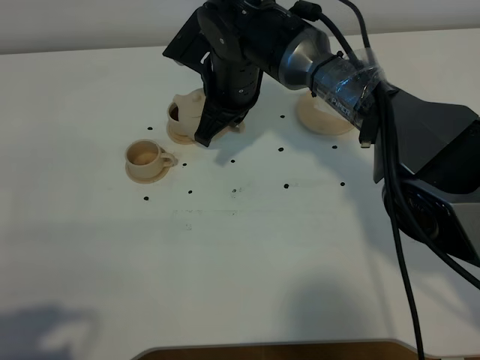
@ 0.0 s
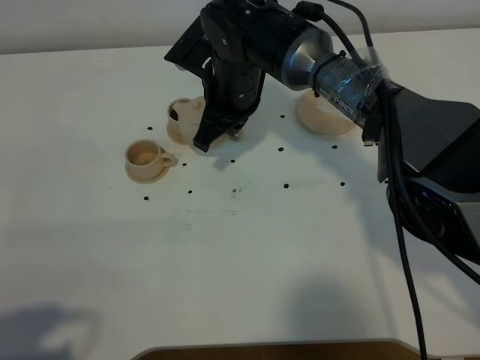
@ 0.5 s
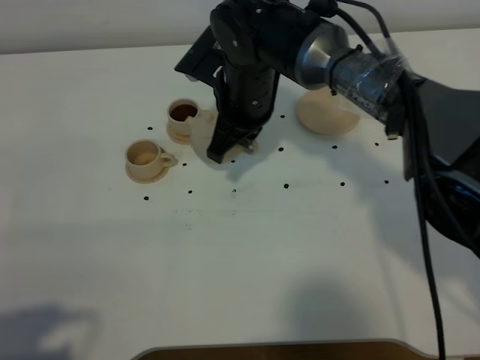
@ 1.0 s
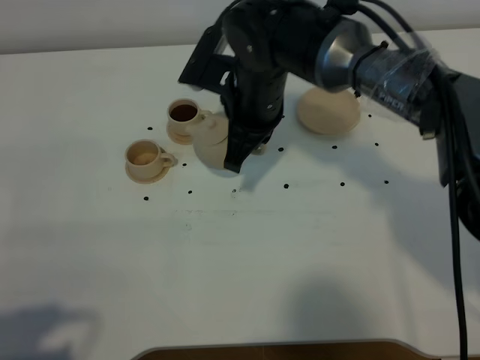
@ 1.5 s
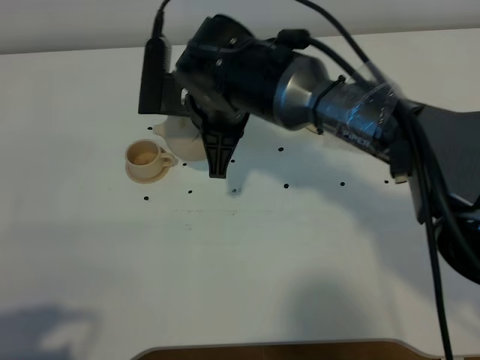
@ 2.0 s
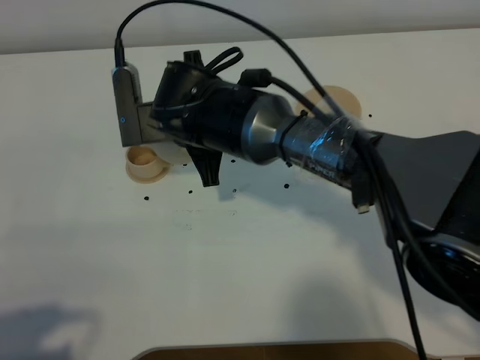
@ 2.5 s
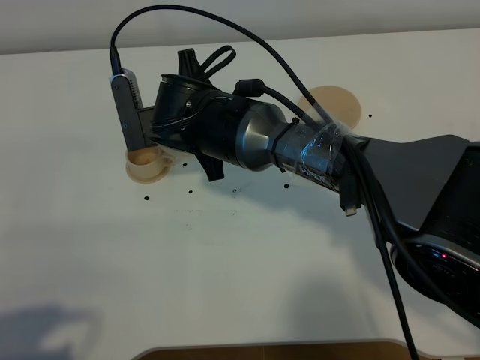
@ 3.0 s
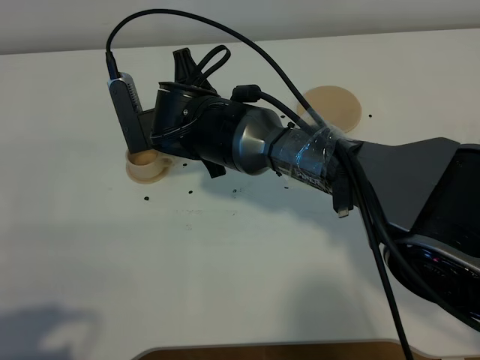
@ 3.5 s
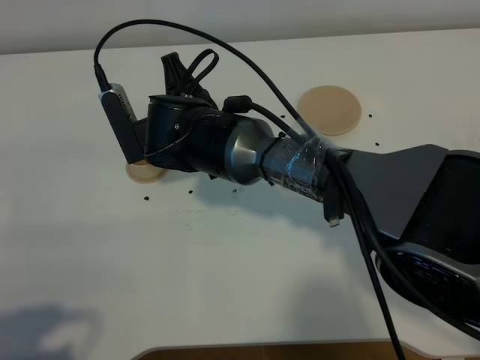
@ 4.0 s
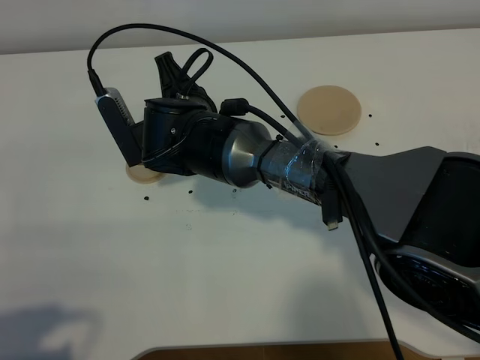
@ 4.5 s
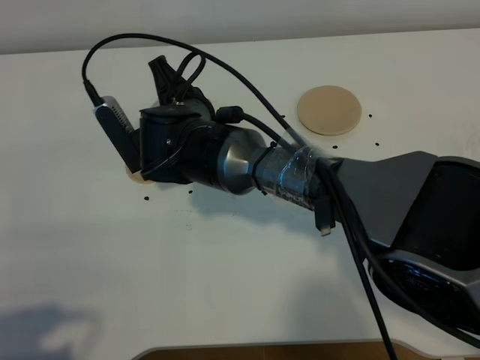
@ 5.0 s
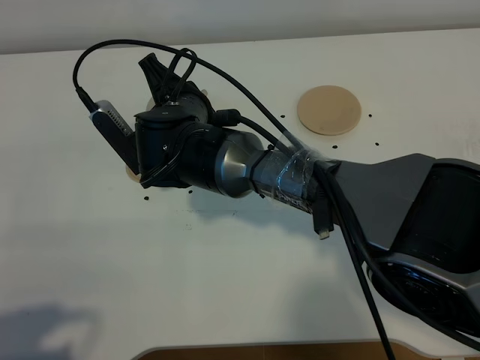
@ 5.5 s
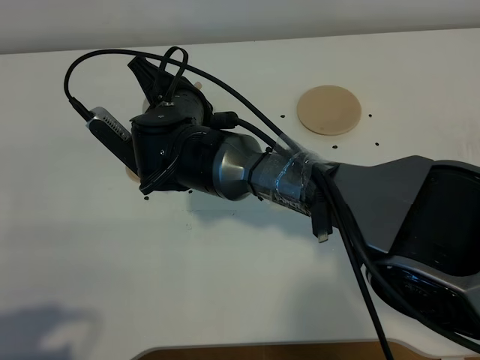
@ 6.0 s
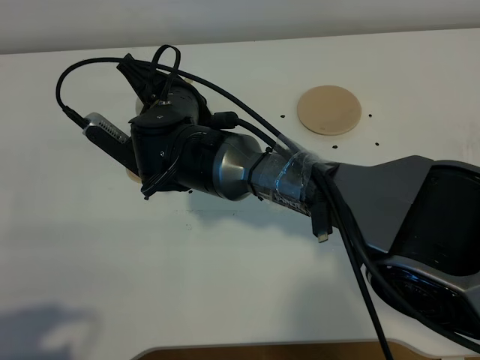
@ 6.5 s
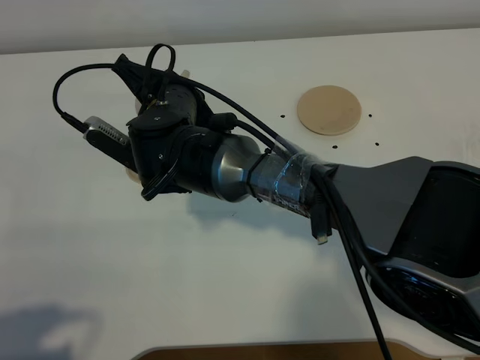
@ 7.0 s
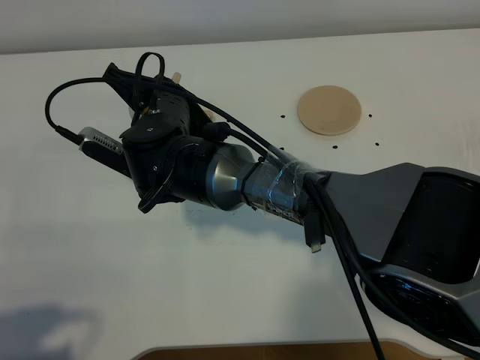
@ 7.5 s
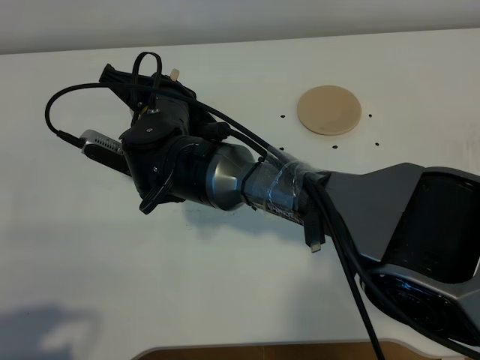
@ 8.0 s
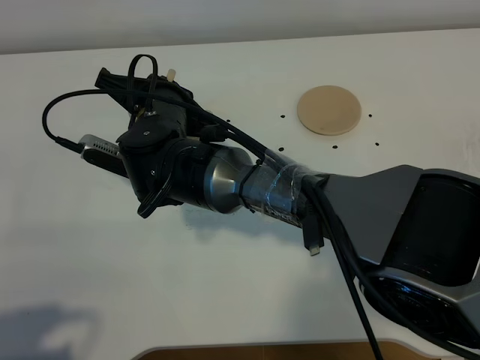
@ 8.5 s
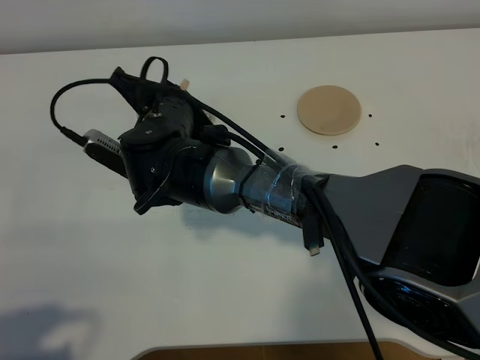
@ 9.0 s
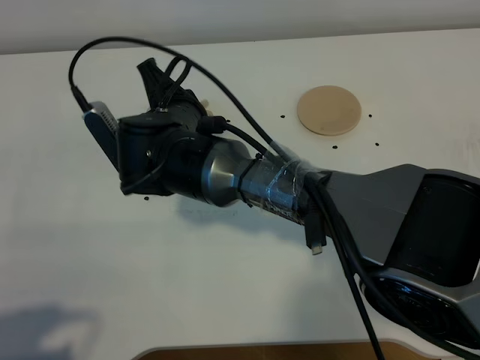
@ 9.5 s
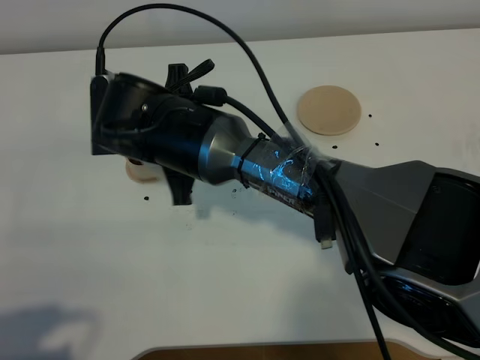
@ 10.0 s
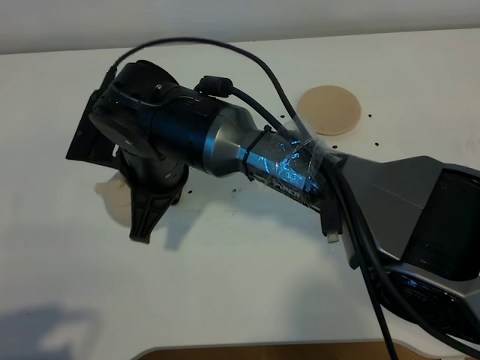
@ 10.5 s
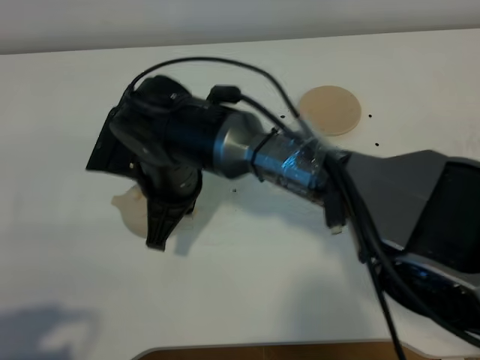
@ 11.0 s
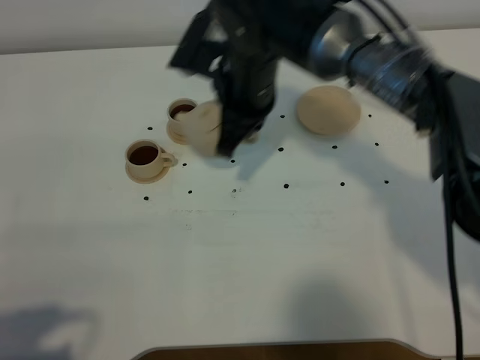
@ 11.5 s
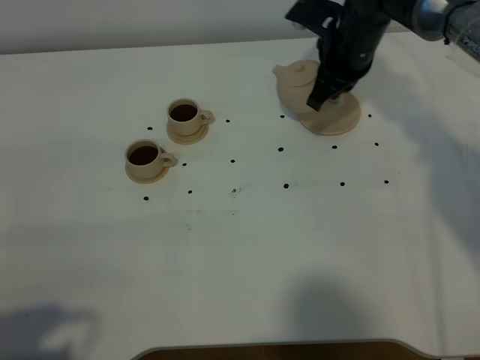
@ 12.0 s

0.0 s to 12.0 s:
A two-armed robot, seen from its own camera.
Task of the whole recording: grasp the brown teapot and pour the tea into the two brown teacups one by one, put the brown teapot back in its original place.
Step, 0.0 to 9.5 s: Pour tea into the teacup with the right gripper.
0.0 to 2.0 s: The right gripper shifts some 5 cm backward.
2.0 to 4.0 s: The right gripper changes place by approximately 5 cm.
6.0 to 8.0 s: The grippers make only small movements.
10.0 to 12.0 s: The right gripper shifts some 30 cm to the right and forward.

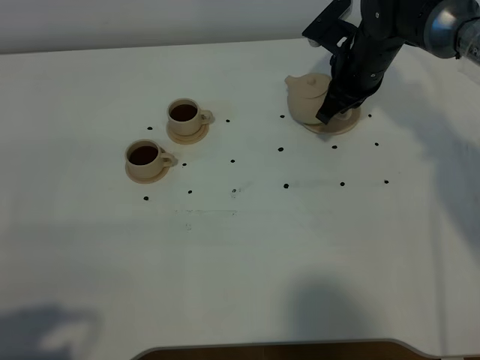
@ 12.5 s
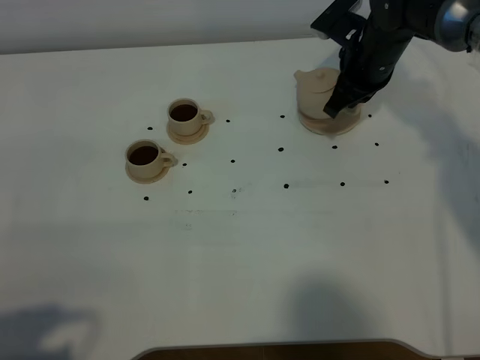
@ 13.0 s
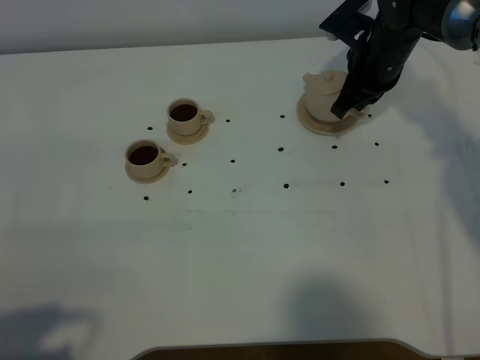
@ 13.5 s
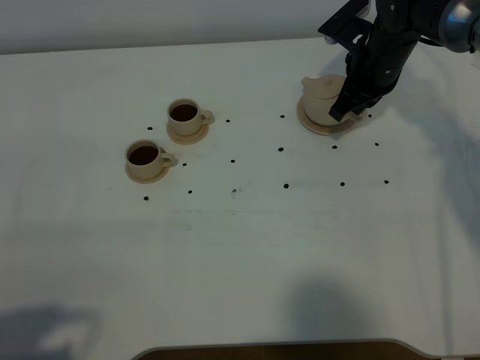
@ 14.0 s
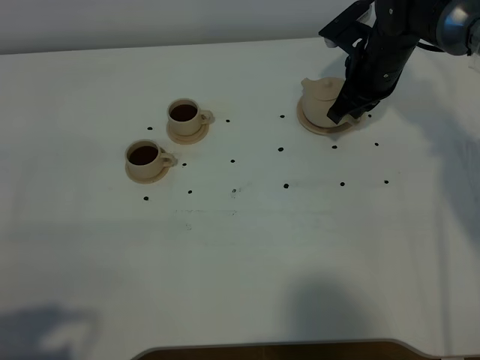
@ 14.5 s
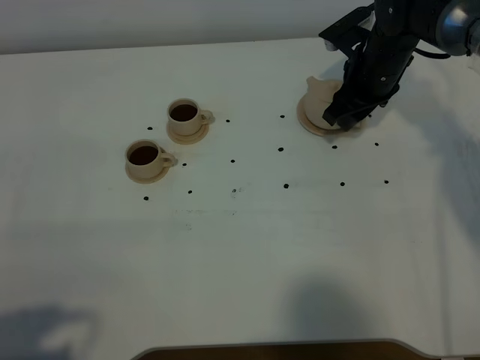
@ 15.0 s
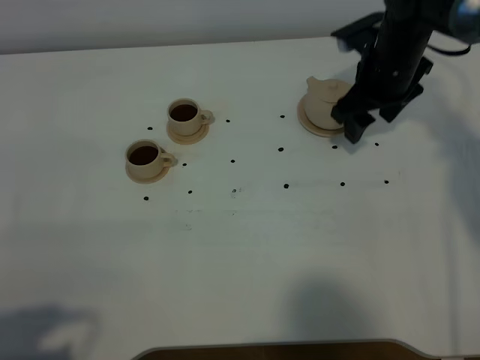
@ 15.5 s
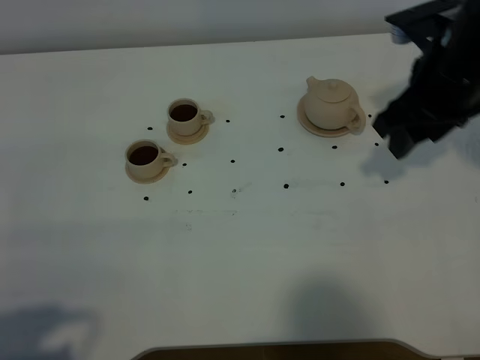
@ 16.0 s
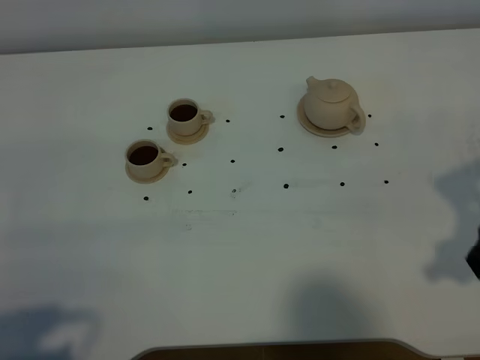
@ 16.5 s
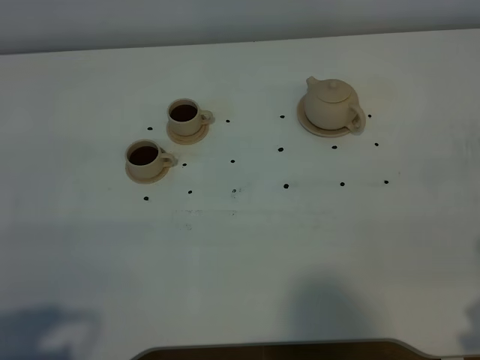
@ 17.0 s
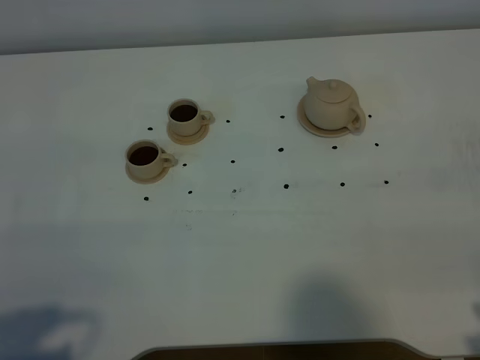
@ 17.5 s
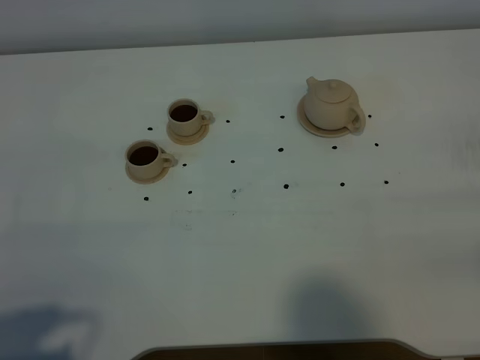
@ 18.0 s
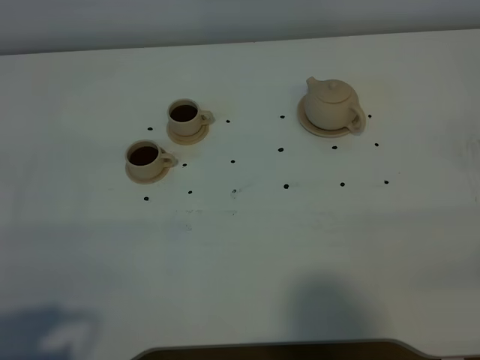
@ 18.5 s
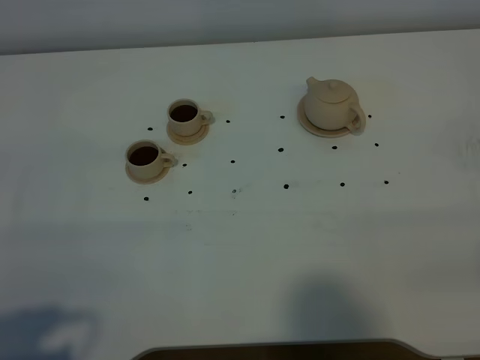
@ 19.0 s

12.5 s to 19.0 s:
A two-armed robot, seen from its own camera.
Task of the whole recording: grasp the brown teapot and pour the tea into the two brown teacups one by one, put the brown teapot back in its original place.
12.5 to 14.5 s: The grippers stay close to where they were, moving slightly.
14.5 to 17.0 s: The right gripper moves backward, some 40 cm, and opens.

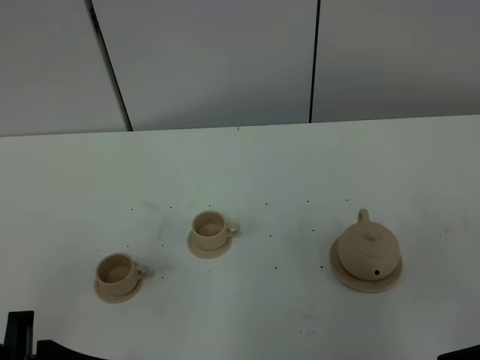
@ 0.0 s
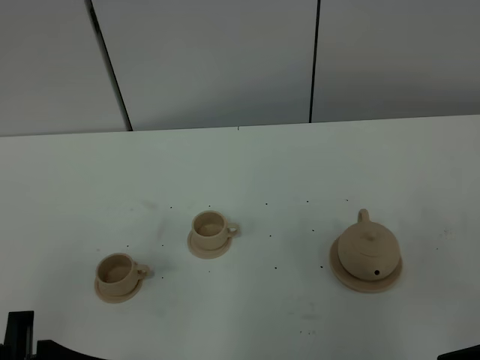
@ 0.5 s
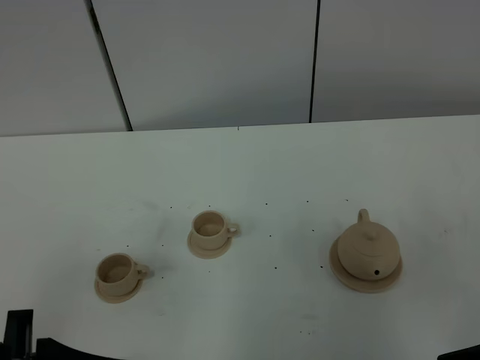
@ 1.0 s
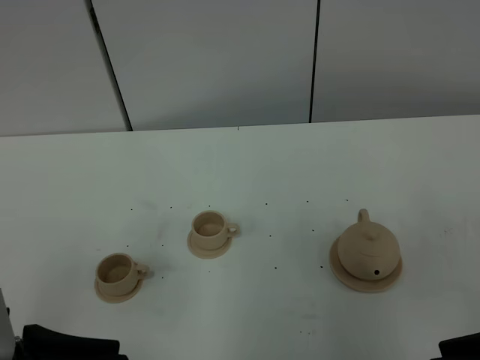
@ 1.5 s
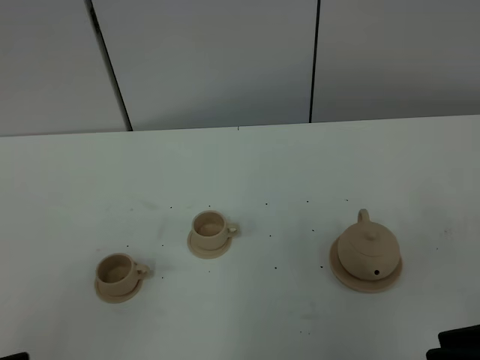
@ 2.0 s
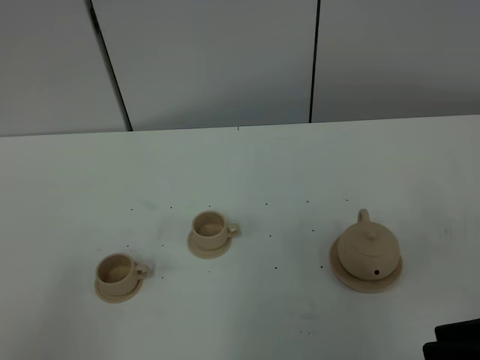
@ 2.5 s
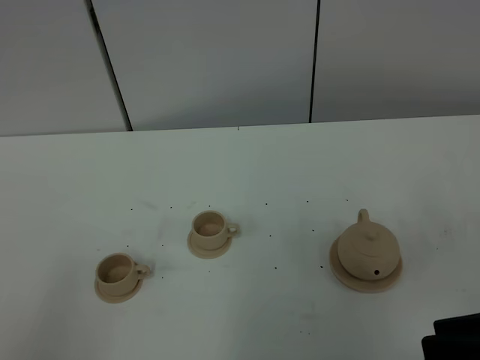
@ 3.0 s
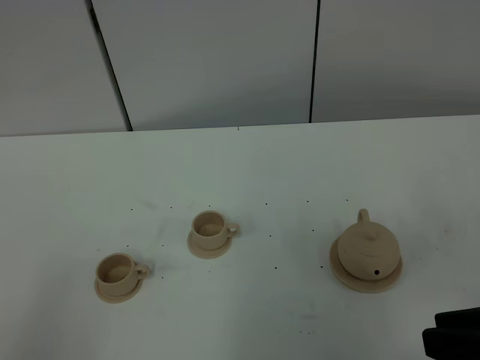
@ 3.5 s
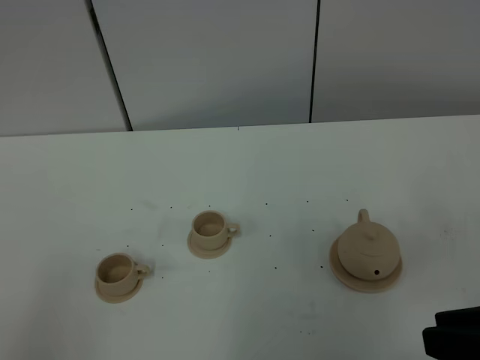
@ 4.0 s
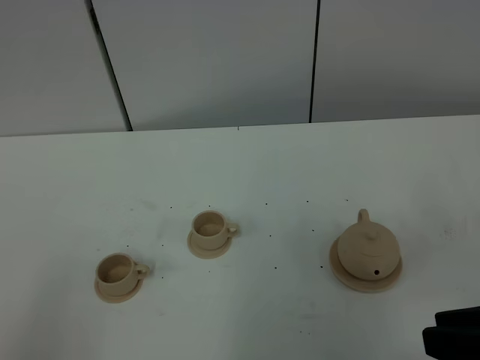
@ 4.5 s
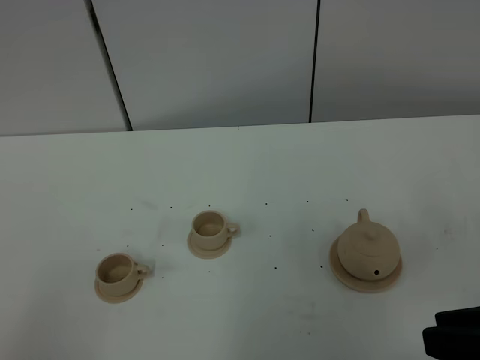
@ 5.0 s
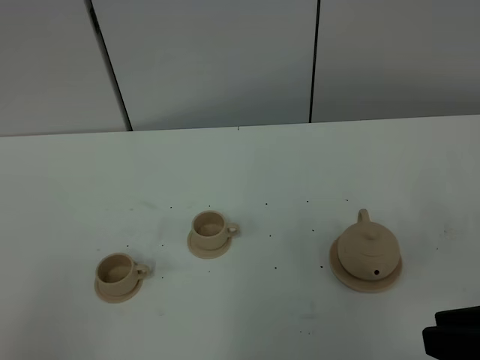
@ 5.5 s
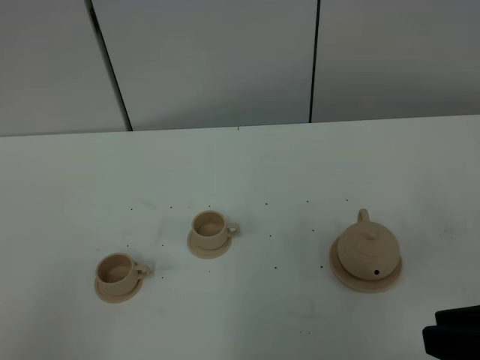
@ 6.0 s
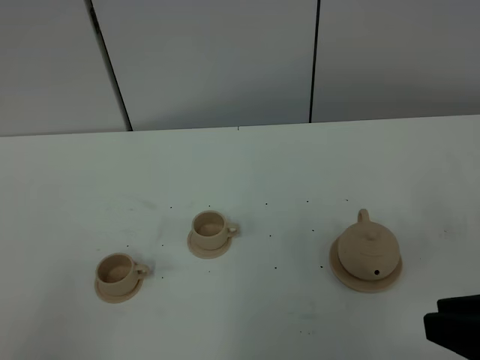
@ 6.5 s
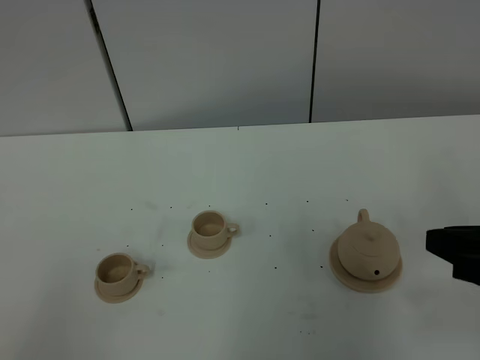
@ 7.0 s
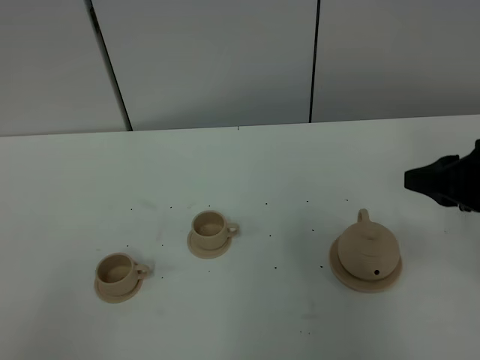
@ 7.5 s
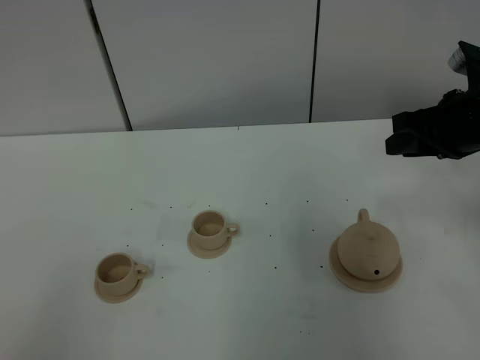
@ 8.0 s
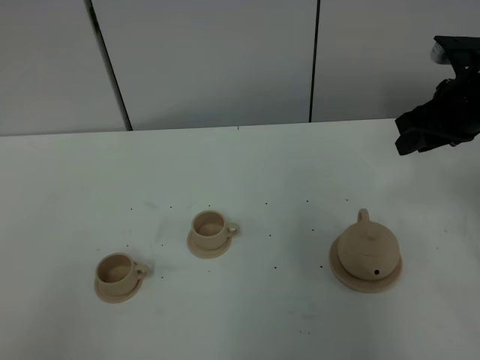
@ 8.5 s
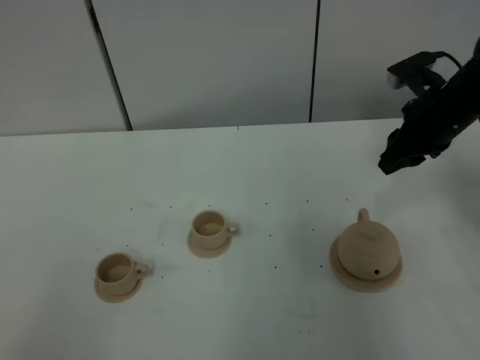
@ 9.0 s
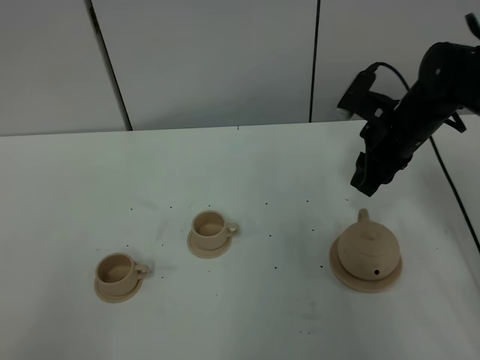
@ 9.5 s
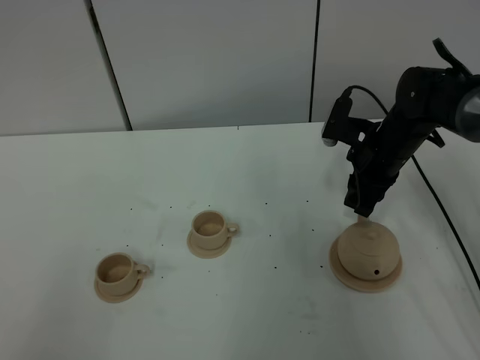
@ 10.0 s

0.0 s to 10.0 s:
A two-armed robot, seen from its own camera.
Task of the whole recording: grasp the brown teapot and pour the tea into the two brown teacups one by one, put the brown teapot back in its original place.
0.0 to 2.0 s: The left gripper changes place by about 5 cm.
6.0 to 8.0 s: The right gripper shifts approximately 30 cm forward.
8.0 to 10.0 s: The right gripper moves downward, to the left and forward, about 15 cm.
